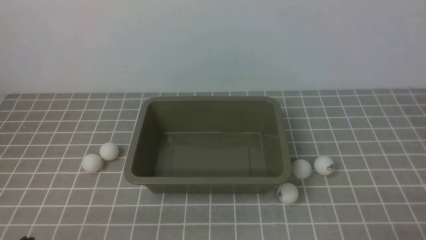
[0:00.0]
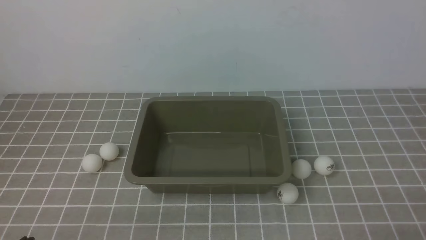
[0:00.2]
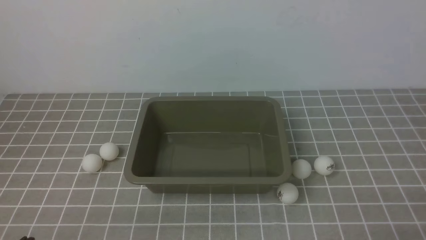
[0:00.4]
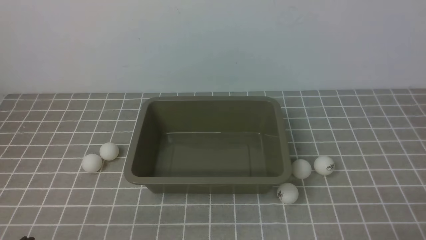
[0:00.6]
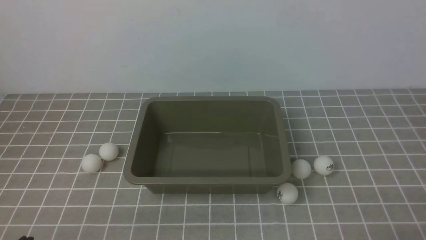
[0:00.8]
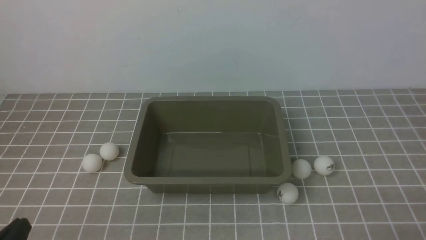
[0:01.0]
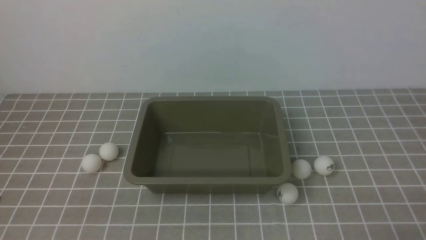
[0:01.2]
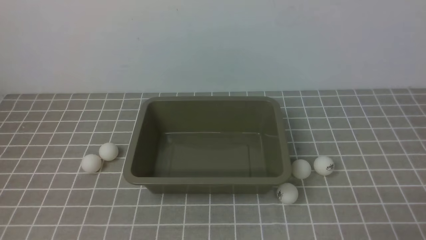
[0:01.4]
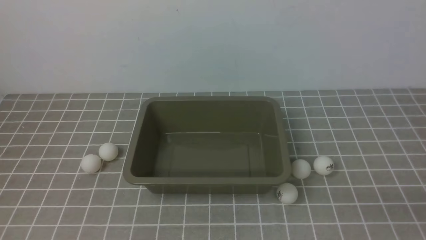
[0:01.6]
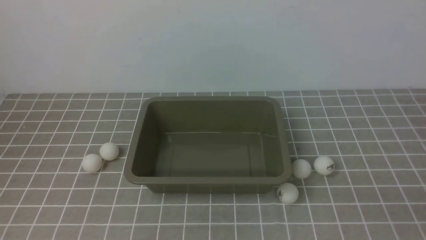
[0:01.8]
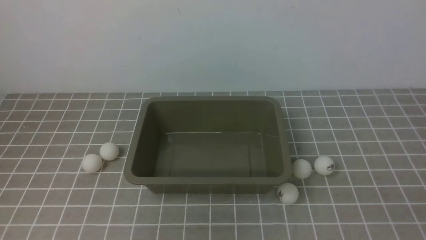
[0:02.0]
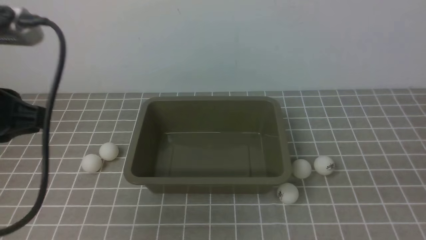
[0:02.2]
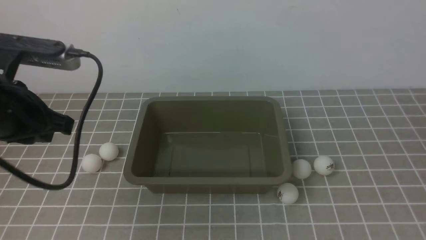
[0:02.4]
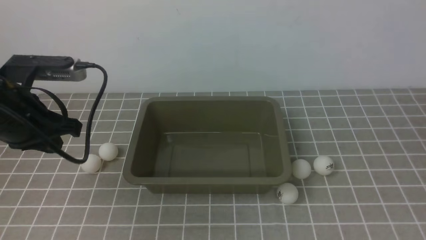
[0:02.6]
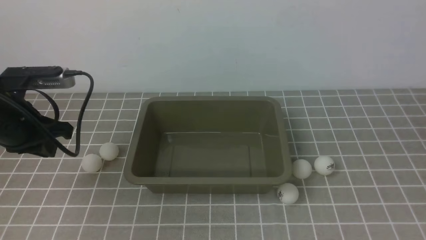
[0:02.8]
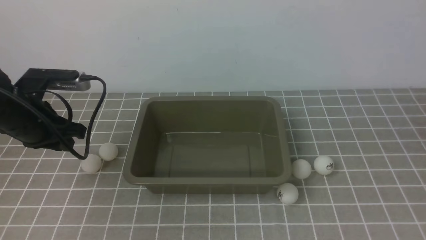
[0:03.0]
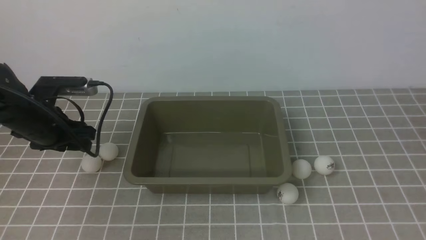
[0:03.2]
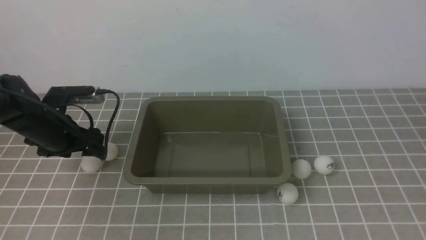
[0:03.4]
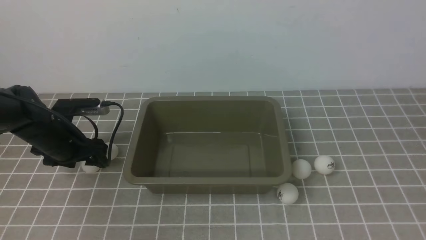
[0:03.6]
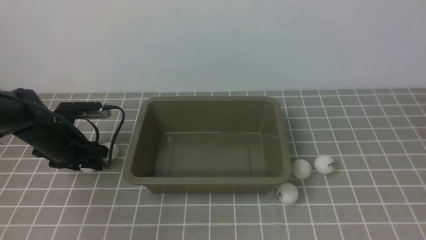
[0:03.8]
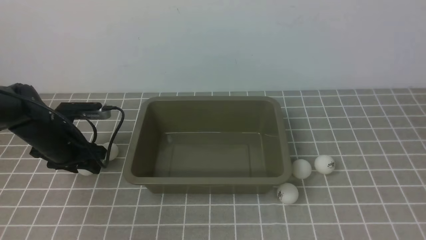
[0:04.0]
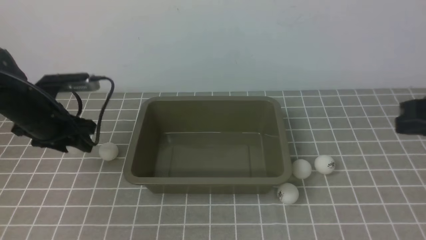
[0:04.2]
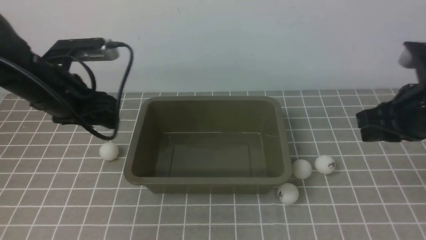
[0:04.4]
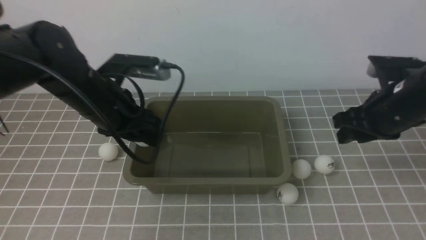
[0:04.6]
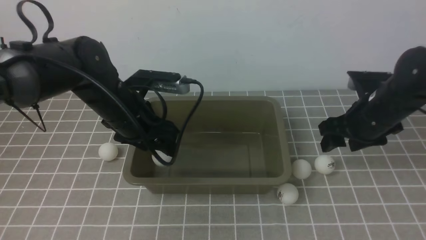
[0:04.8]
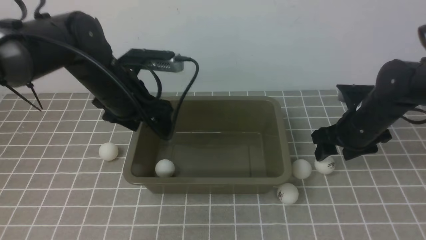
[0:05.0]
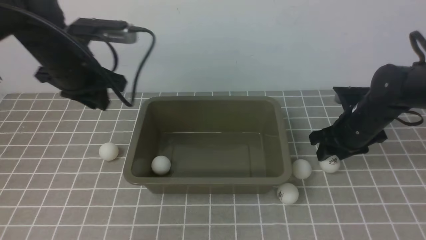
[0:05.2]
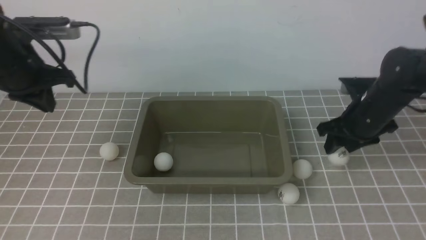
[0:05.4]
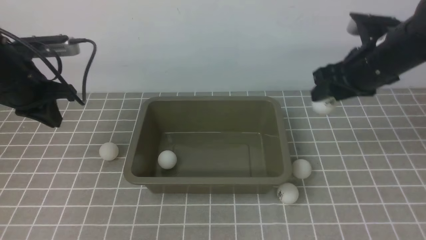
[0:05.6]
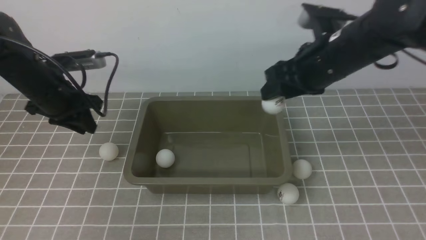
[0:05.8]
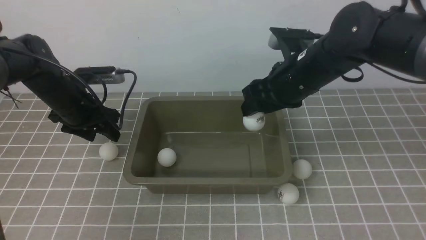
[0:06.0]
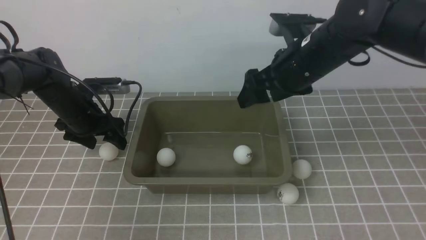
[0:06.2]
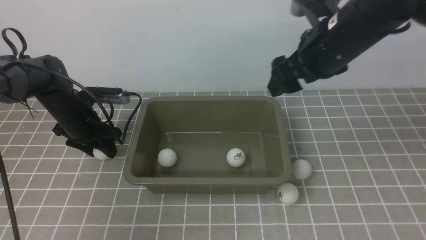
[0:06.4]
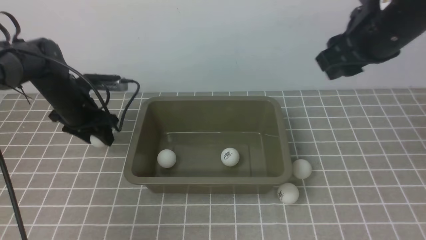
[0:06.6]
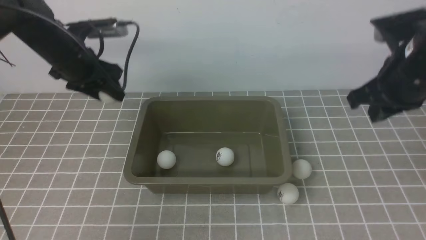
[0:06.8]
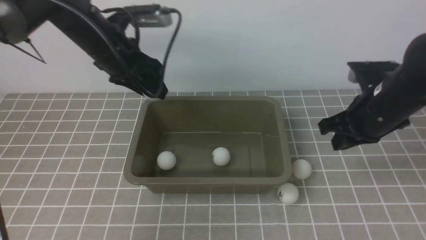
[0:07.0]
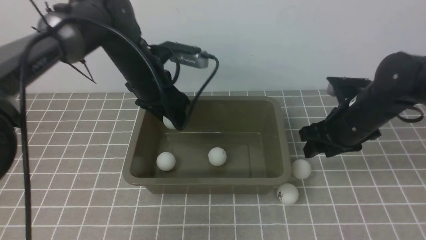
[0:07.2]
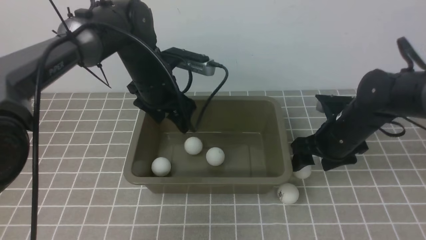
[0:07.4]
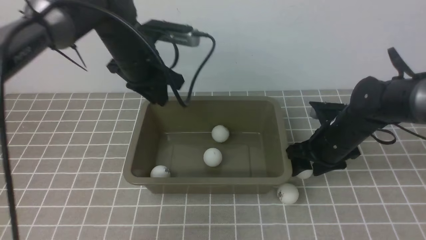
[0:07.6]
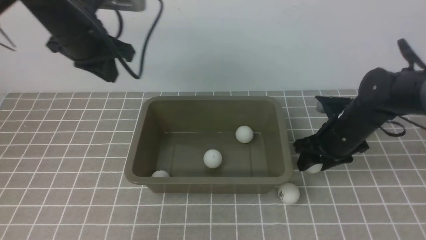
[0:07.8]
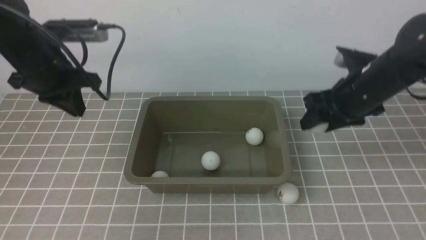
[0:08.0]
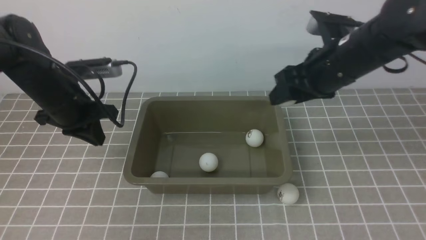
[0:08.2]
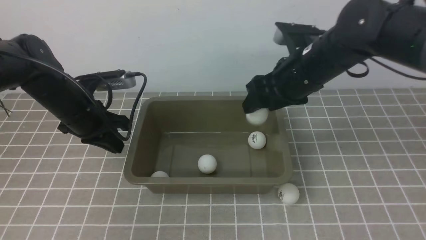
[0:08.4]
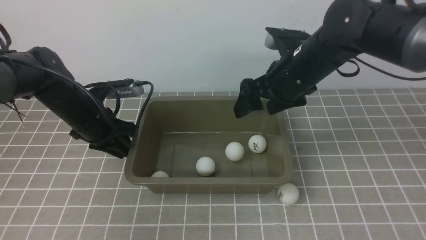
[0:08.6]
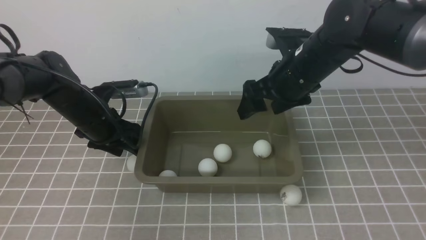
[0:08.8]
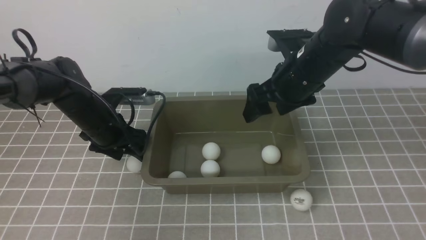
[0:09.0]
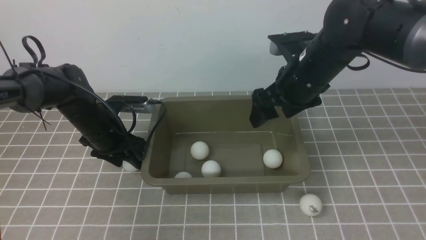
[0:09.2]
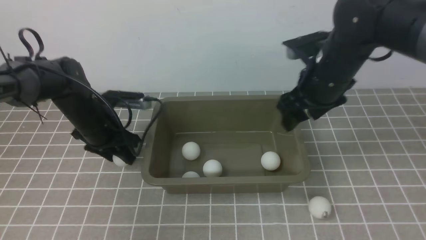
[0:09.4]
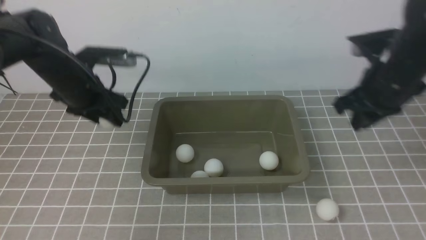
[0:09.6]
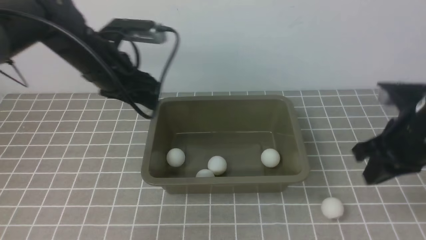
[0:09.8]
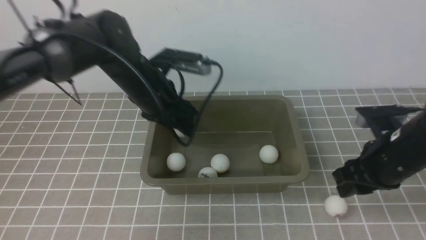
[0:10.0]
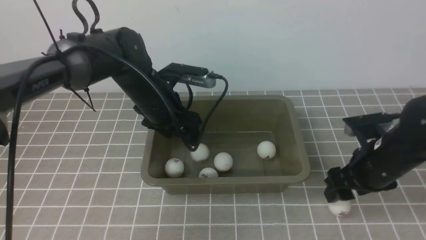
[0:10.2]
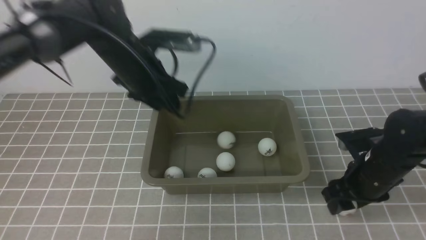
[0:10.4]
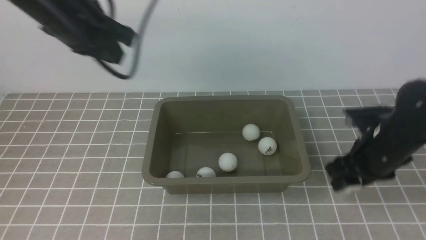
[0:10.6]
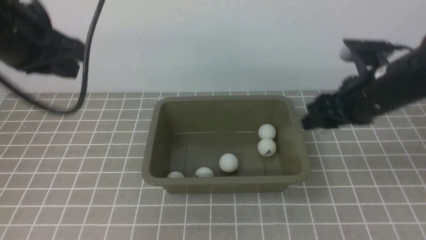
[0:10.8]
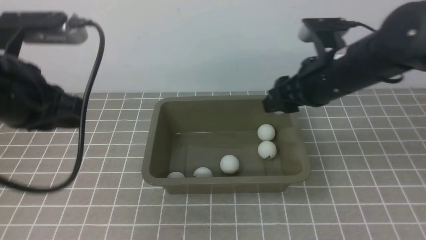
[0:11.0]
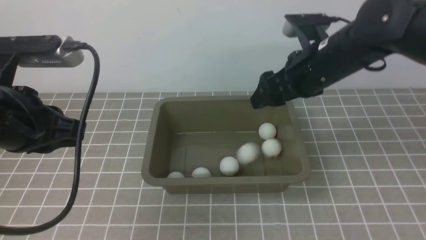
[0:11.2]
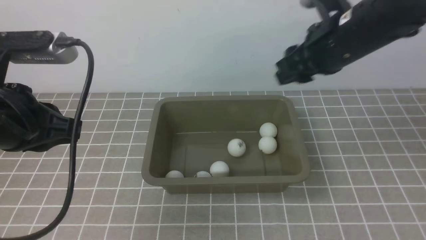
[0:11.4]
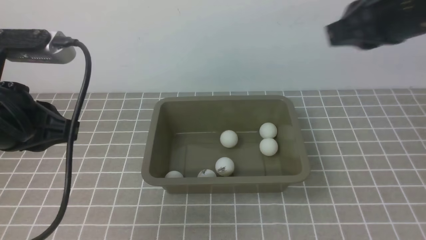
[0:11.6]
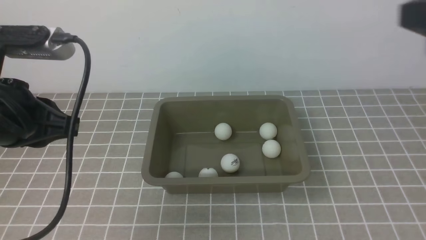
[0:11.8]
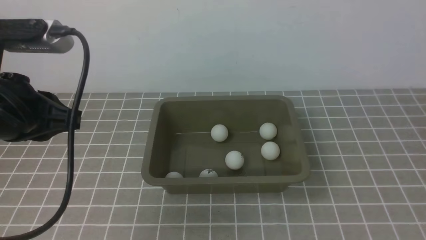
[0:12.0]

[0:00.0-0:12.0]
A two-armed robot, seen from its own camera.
Step, 0:00.0 to 0:04.0: use the left arm to clamp the table tennis ball closest to it.
Step, 0:04.4 to 0:05.0: use the left arm to put the table tennis ball into the box.
Step, 0:05.2 to 0:05.4: use the right arm to clamp the table tennis ball closest to it.
Step, 0:05.6 to 0:06.0: use the right arm to put the table tennis ball into the box.
Step, 0:06.4 to 0:06.6: use the left arm to clamp the table tennis ball closest to it.
Step, 0:07.0 to 0:07.2: use the left arm to put the table tennis ball into the box.
Step, 0:07.6 to 0:08.0: use the right arm to clamp the table tennis ball closest to it.
Step, 0:08.2 to 0:08.4: use the right arm to put the table tennis ball into the box.
Step, 0:08.6 to 0:09.4: use the left arm to clamp the table tennis ball closest to it.
Step, 0:09.6 to 0:10.0: use the left arm to put the table tennis ball into the box.
Step, 0:10.2 to 0:10.6: use the right arm to clamp the table tennis ball closest to it.
Step, 0:10.8 to 0:11.2: use the right arm to put the table tennis ball into the box.
0:01.6 to 0:03.0: The left gripper heads forward, covering about 30 cm, and opens its fingers.
0:03.0 to 0:04.4: The right gripper travels forward and downward by roughly 20 cm, while the left gripper moves to the right, approximately 5 cm, and moves about 10 cm downward and comes back.
0:04.4 to 0:06.0: The left gripper heads forward and downward, covering approximately 10 cm, and closes and opens again. The right gripper shifts about 15 cm to the left and forward, and opens its fingers.
0:06.0 to 0:07.6: The right gripper travels downward and to the right by about 15 cm, and closes, then reopens. The left gripper moves to the right and upward, approximately 15 cm, and closes.
0:07.6 to 0:09.0: The right gripper moves upward and to the left, some 15 cm. The left gripper moves downward and to the left, some 15 cm, and opens up.
0:09.0 to 0:10.4: The left gripper travels upward and to the right by some 15 cm, and closes its fingers. Meanwhile the right gripper is displaced to the right, downward and backward by about 15 cm, and closes and opens again.
0:10.4 to 0:12.0: The right gripper is displaced backward and upward by approximately 30 cm, and closes. Meanwhile the left gripper goes some 20 cm backward and to the left, and closes its fingers.

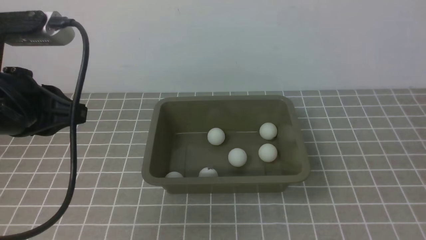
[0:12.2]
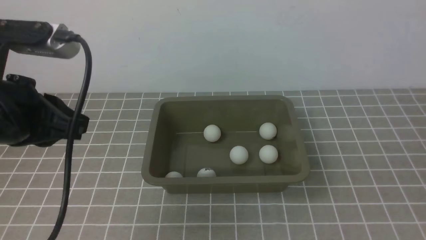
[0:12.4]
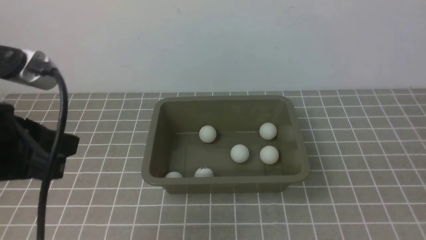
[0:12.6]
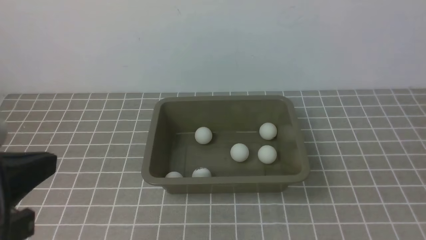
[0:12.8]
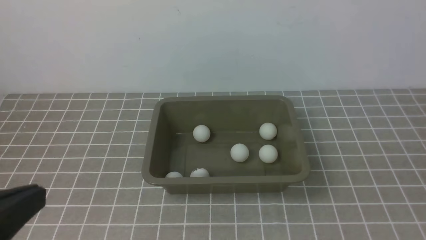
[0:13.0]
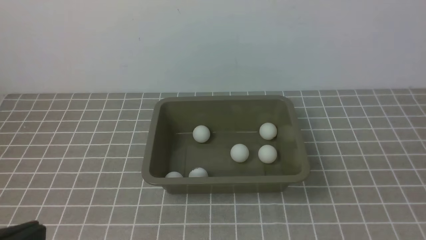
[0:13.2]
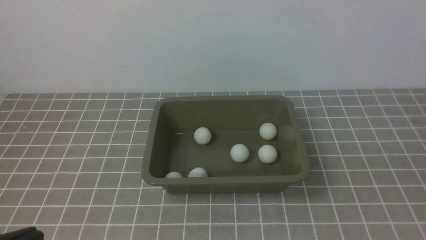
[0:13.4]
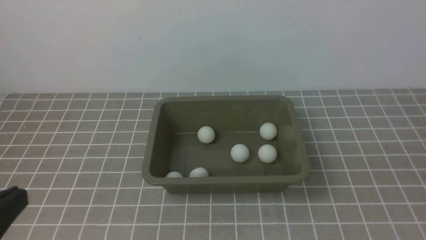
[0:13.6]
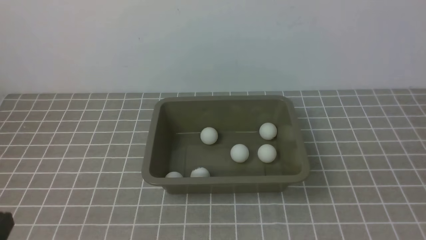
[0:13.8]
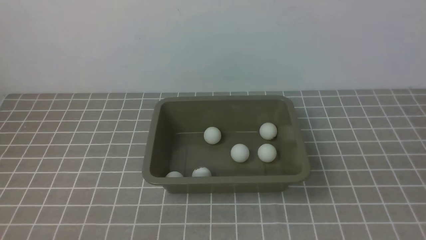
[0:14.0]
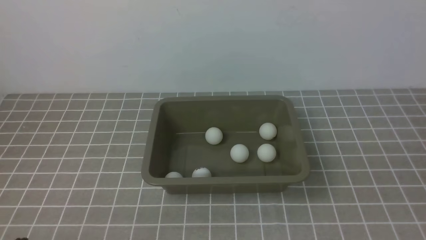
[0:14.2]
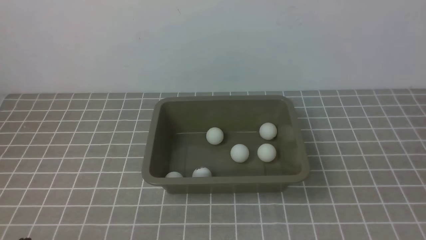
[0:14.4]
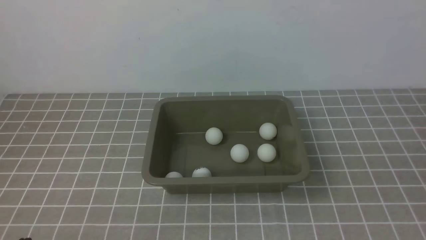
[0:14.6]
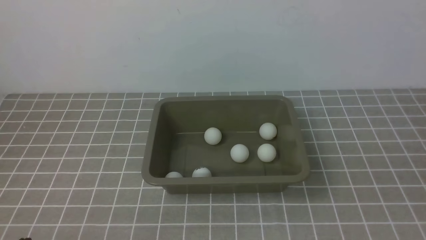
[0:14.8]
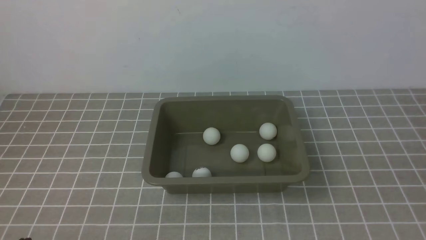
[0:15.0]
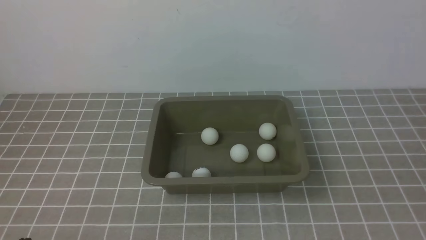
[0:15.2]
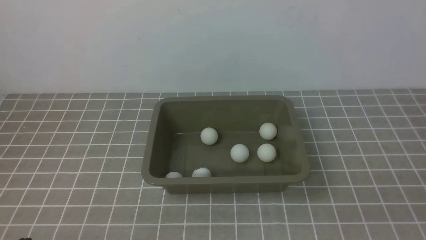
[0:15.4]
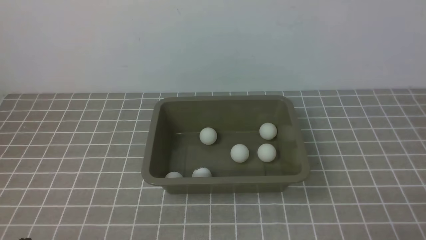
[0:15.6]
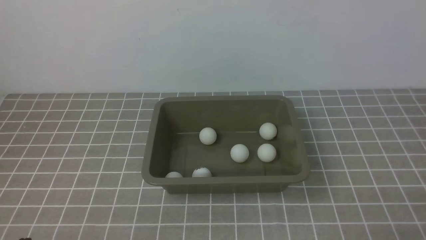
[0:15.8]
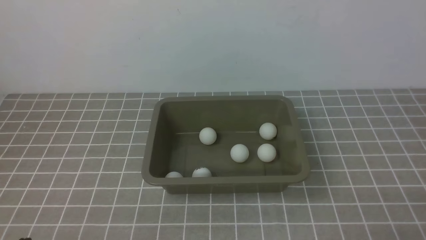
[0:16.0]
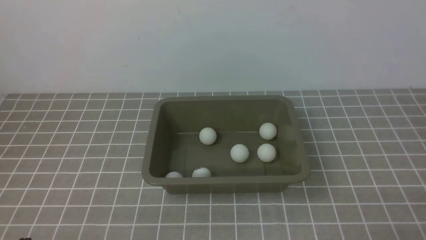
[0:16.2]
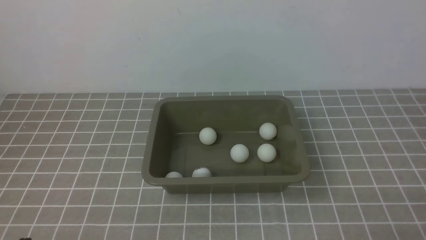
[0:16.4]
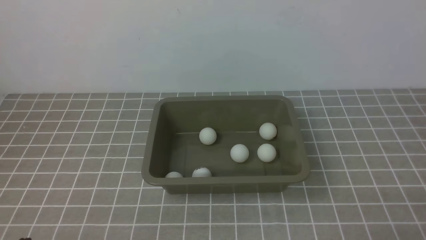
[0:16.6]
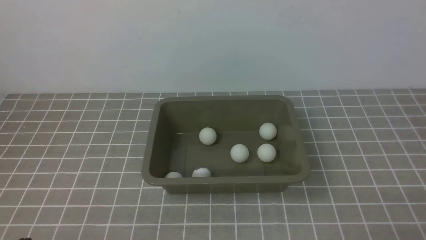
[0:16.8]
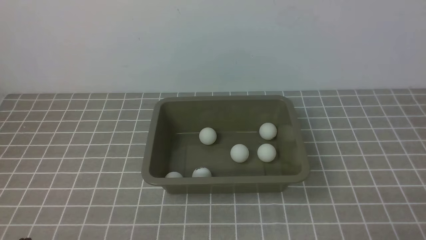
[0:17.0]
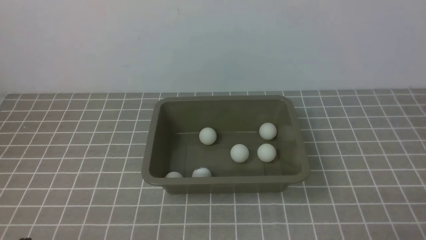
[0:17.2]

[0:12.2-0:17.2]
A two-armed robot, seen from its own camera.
0:12.2 to 0:13.8: The left gripper shifts about 20 cm backward and downward.
0:15.6 to 0:17.2: Both grippers stay put.
